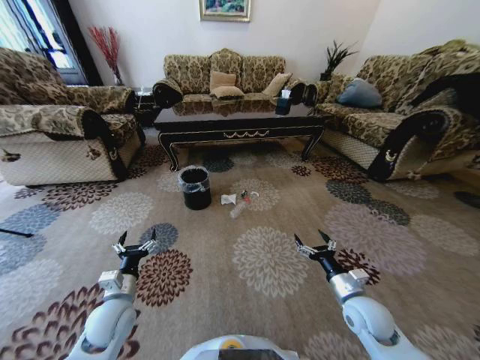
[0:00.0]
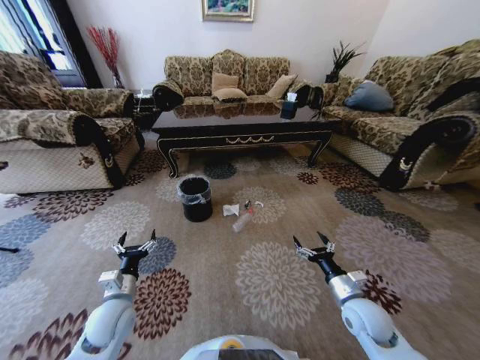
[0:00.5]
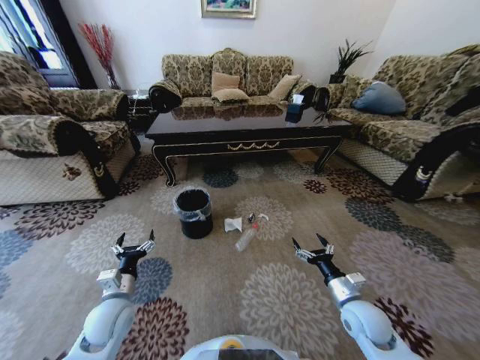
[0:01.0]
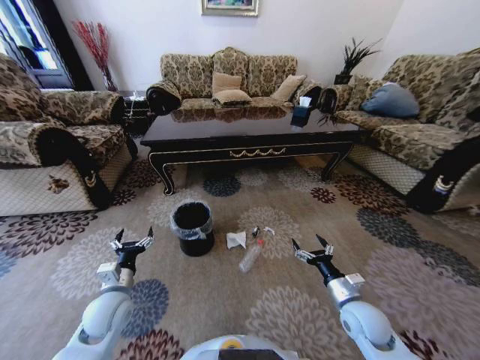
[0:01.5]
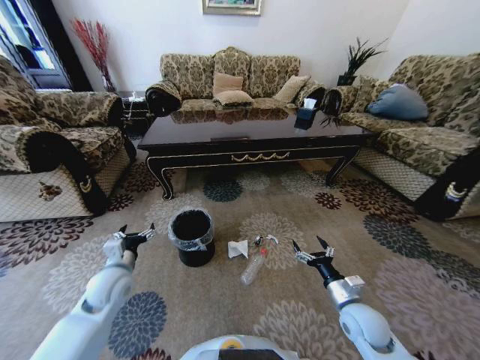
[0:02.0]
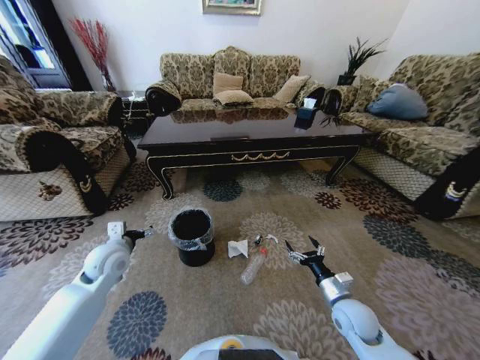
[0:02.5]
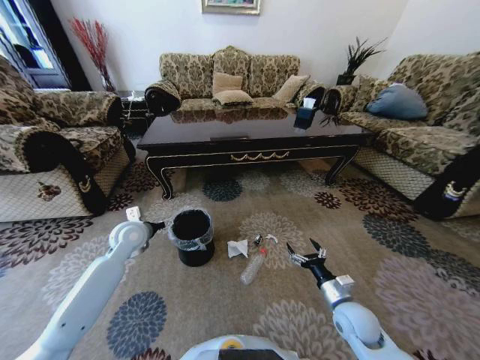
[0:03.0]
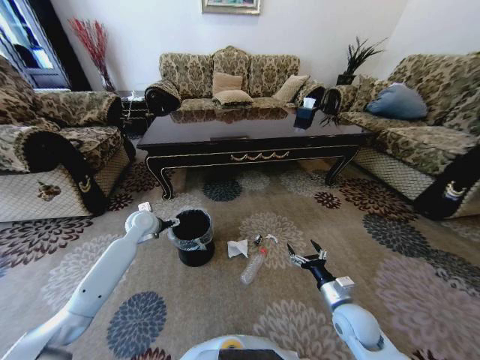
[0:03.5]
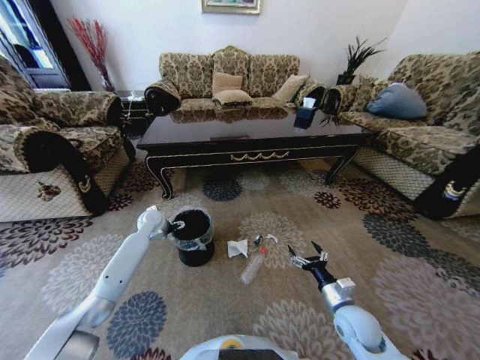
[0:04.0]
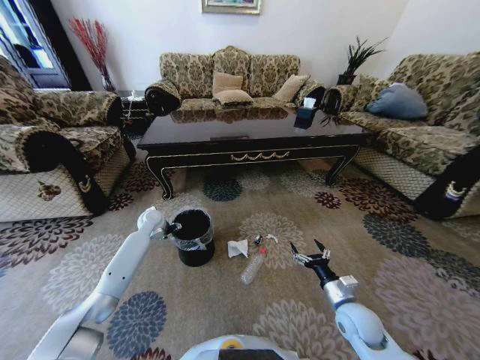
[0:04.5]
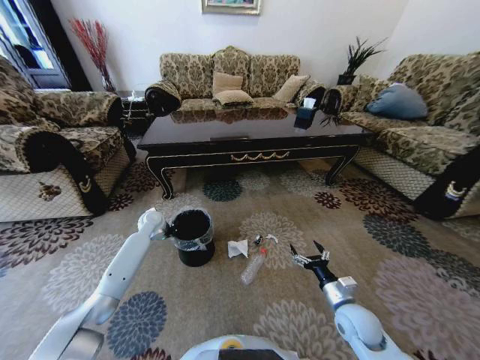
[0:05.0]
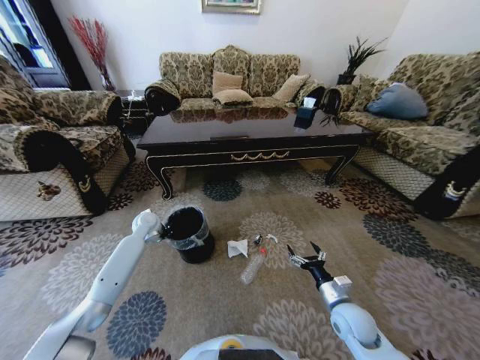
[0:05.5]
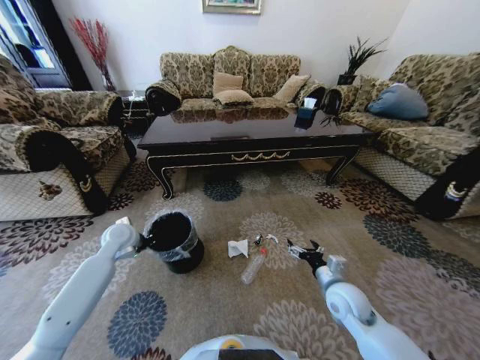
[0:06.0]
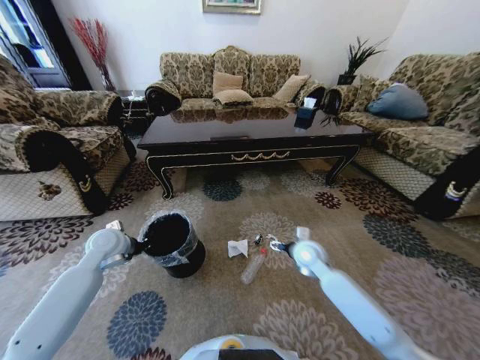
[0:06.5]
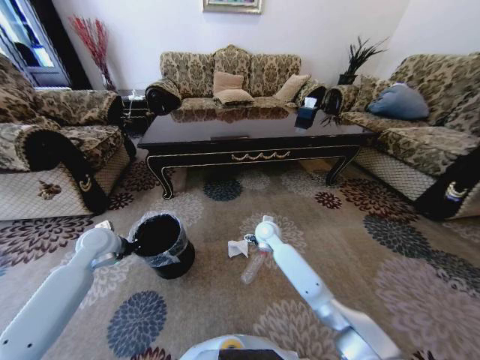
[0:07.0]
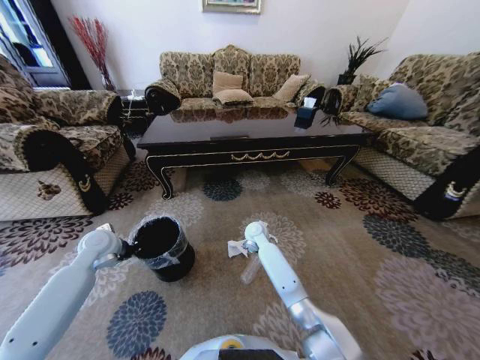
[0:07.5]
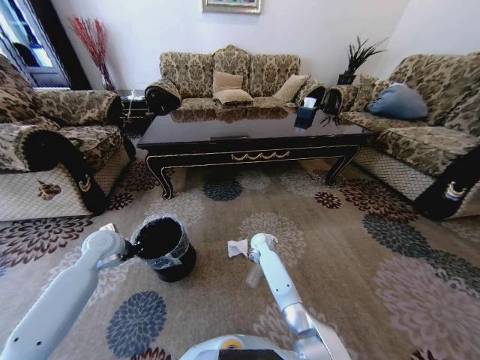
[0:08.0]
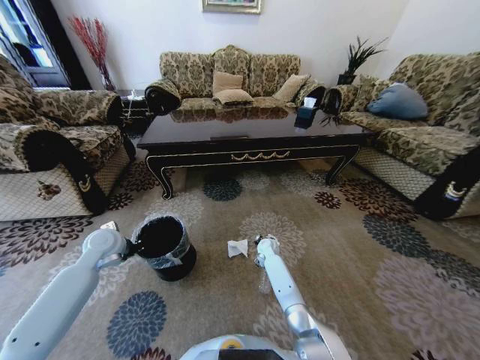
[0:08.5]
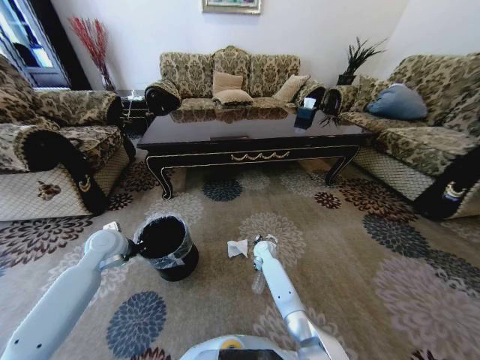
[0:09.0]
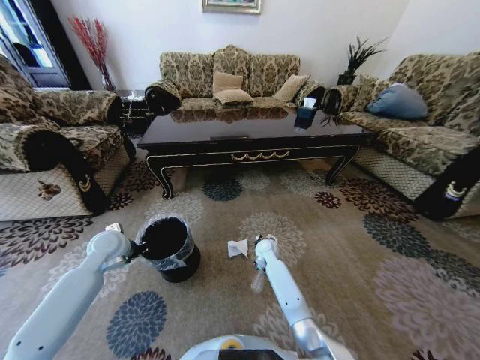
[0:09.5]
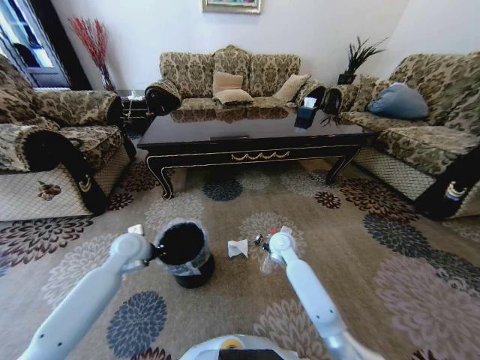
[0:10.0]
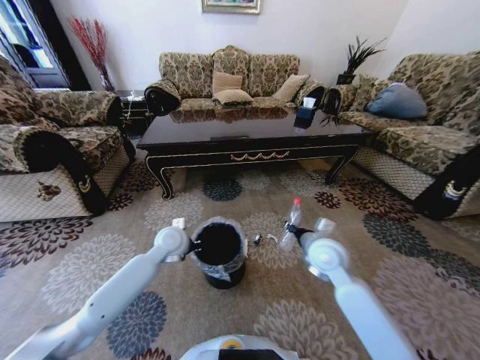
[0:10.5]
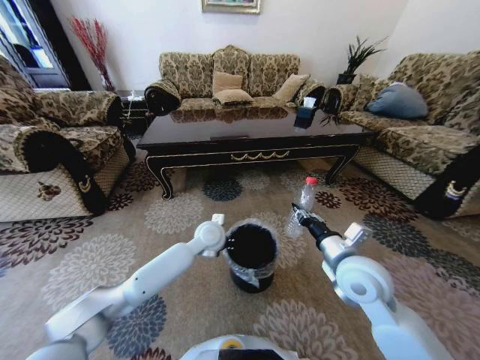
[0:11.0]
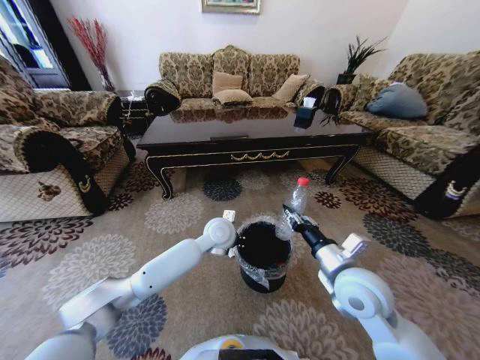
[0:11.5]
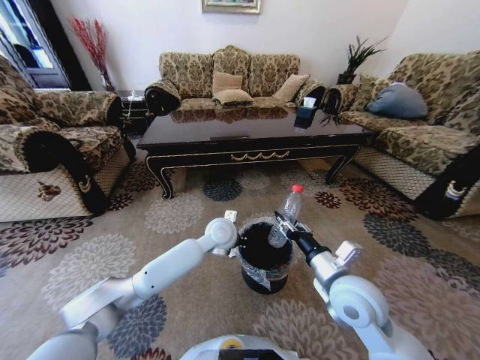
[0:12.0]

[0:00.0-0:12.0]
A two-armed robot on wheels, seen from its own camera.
Task of the whole recording: Move to the front of the table and pick up the trash from the floor, then place it into the trash bin.
0:00.0 to 0:02.0: The left gripper is displaced forward by roughly 5 cm.
0:02.0 to 0:04.0: The left gripper shifts some 20 cm forward.
0:04.0 to 0:06.0: The left gripper moves backward and to the left, some 10 cm, and closes its fingers; the right gripper moves some 5 cm.
0:06.0 to 0:08.0: The right gripper goes some 30 cm forward and to the left.
0:08.0 to 0:10.0: The left gripper goes roughly 10 cm to the right. Meanwhile the right gripper goes approximately 15 cm upward, backward and to the right, and closes up.
0:10.0 to 0:12.0: The right gripper is displaced backward and upward by some 25 cm; the left gripper moves to the right, roughly 25 cm.

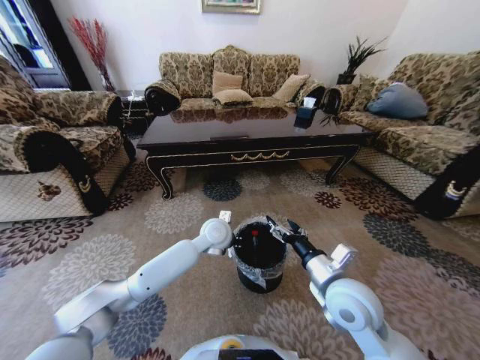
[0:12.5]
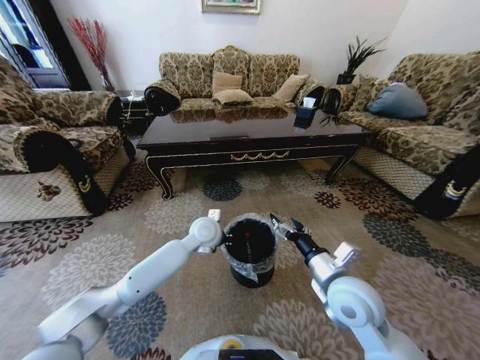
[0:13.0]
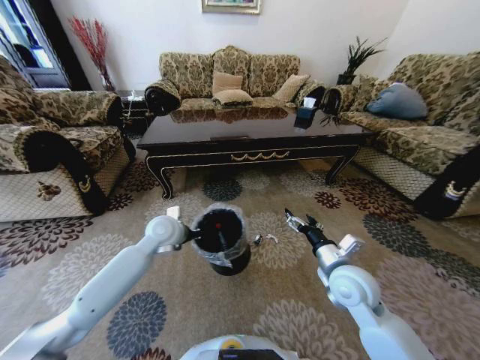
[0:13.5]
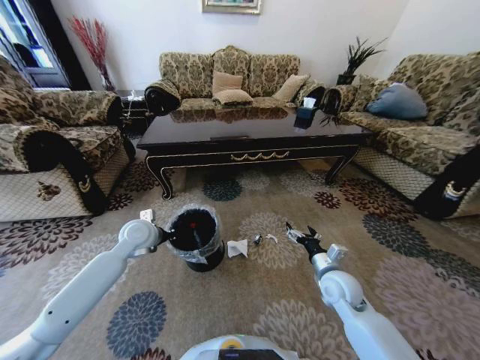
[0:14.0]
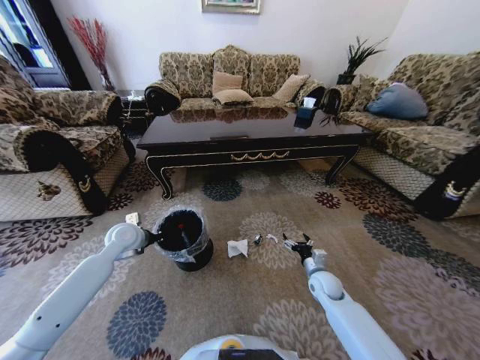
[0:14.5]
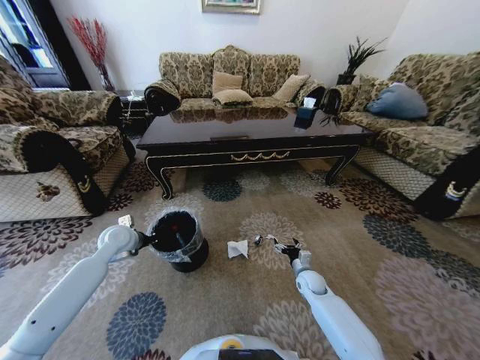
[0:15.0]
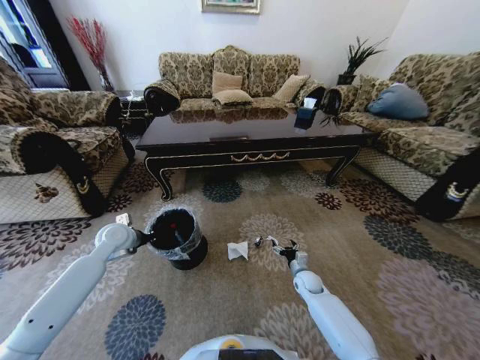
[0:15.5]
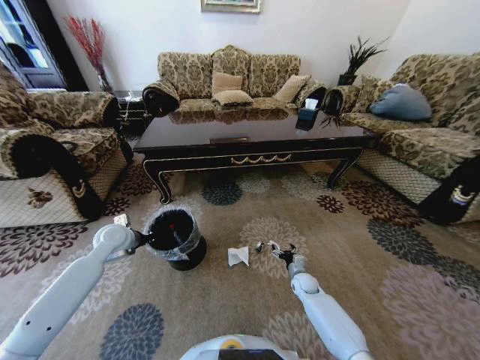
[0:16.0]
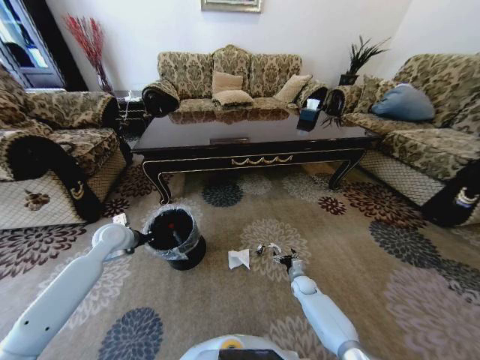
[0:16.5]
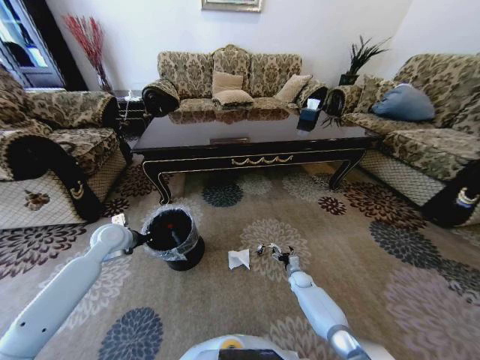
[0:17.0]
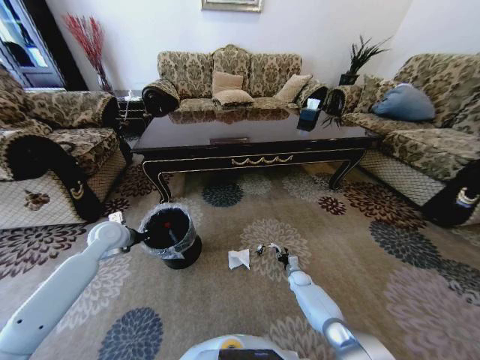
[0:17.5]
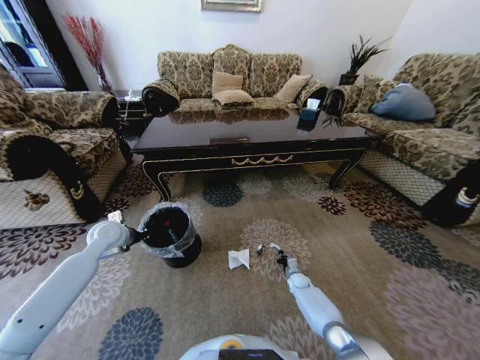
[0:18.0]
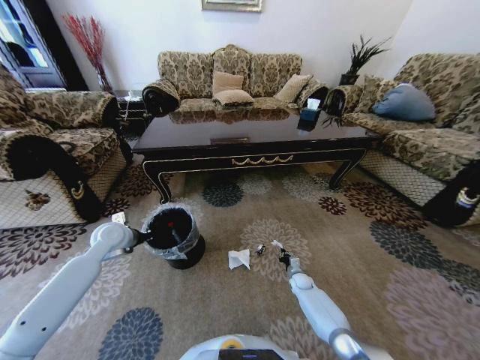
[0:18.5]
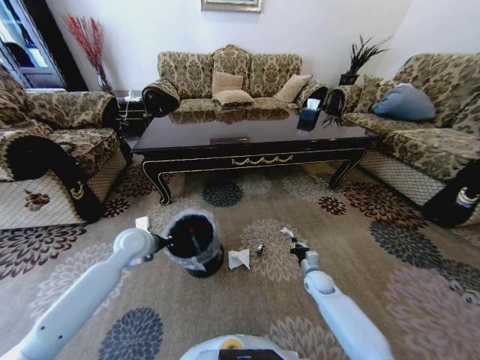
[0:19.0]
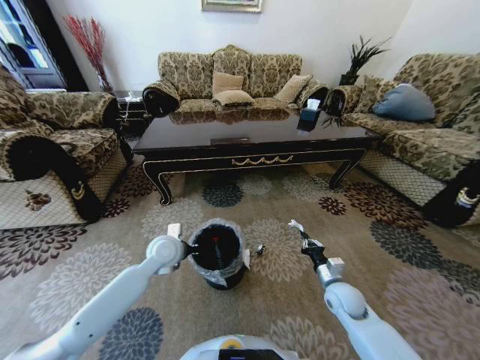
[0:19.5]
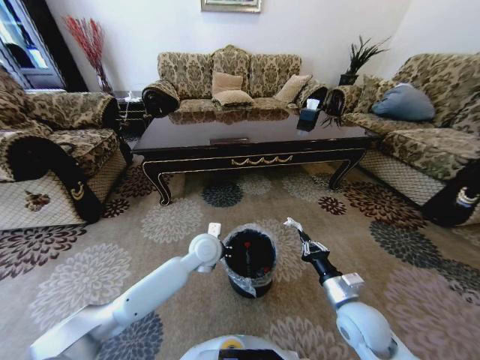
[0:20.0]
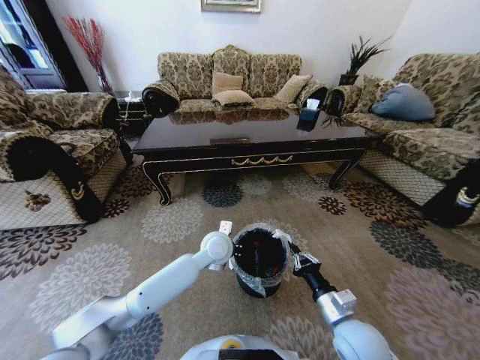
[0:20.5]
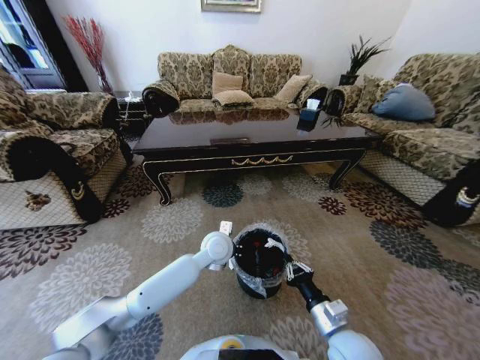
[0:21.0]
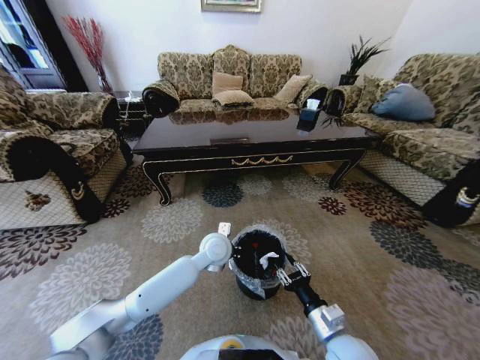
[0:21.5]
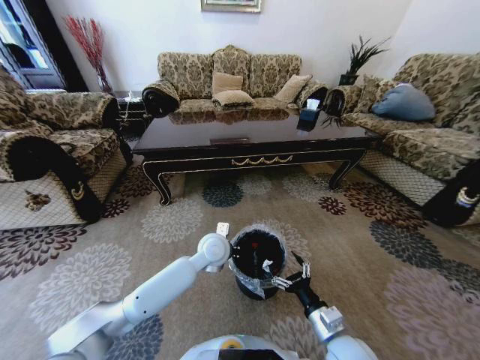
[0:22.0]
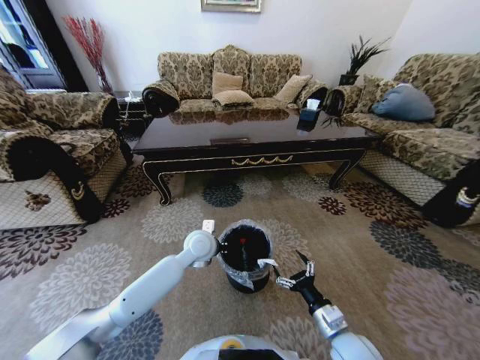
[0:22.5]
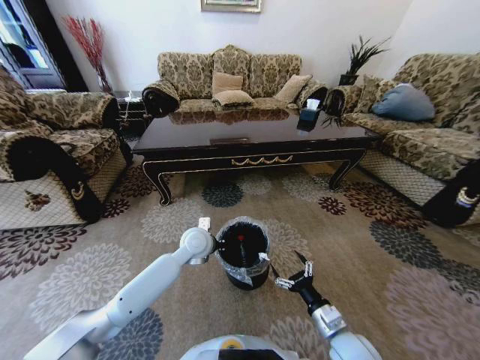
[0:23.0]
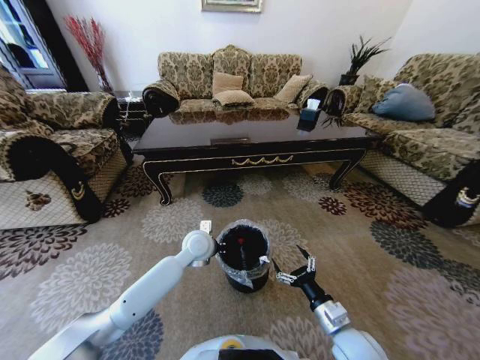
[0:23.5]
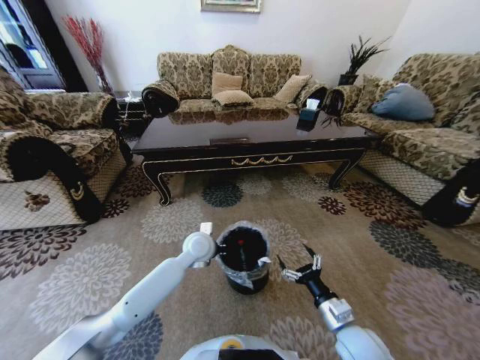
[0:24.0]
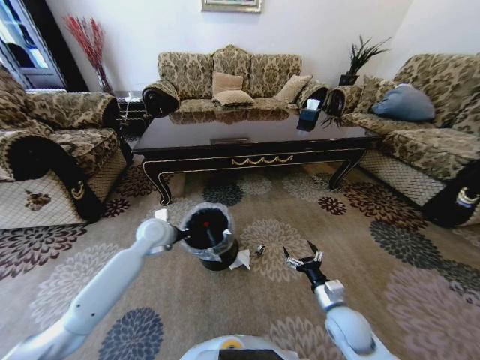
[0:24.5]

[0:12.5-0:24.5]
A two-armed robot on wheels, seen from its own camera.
Task of the whole recording: Move to the front of the table and pick up the trash from the floor, then place it into the trash bin.
0:12.5 to 0:14.5: The right gripper shifts some 25 cm downward and forward; the left gripper heads to the left, covering some 30 cm.
0:14.5 to 0:16.5: The right gripper goes some 15 cm downward.
0:16.5 to 0:18.5: The right gripper closes its fingers.
0:18.5 to 0:20.5: The left gripper shifts about 30 cm to the right; the right gripper travels upward and backward by some 35 cm.
0:20.5 to 0:22.5: The right gripper opens up. The left gripper moves about 5 cm.
0:22.5 to 0:24.5: The left gripper heads to the left, covering approximately 15 cm. The right gripper shifts roughly 5 cm forward.

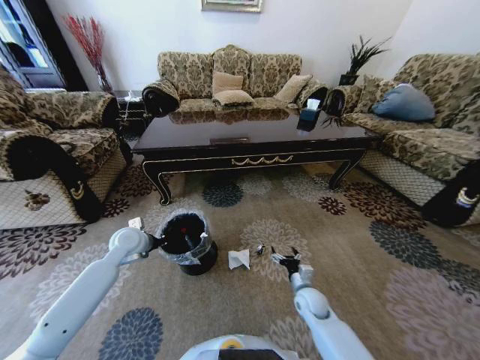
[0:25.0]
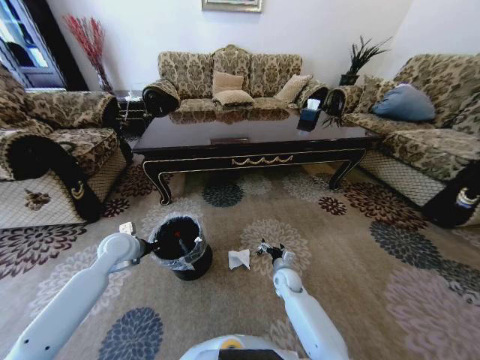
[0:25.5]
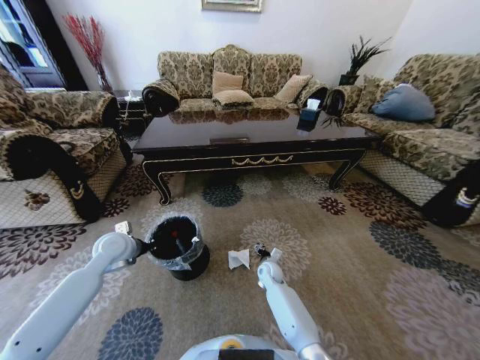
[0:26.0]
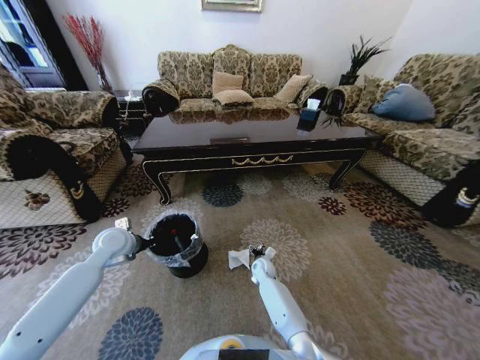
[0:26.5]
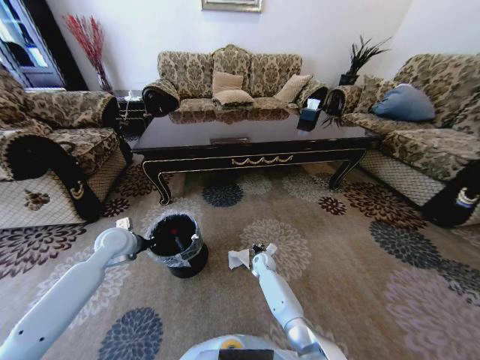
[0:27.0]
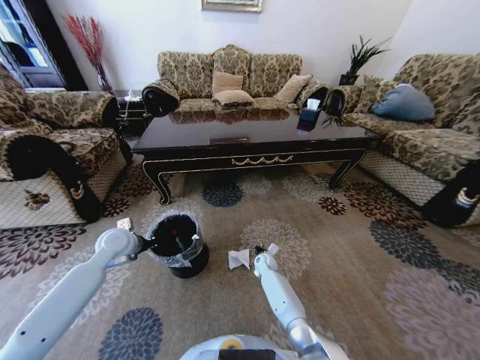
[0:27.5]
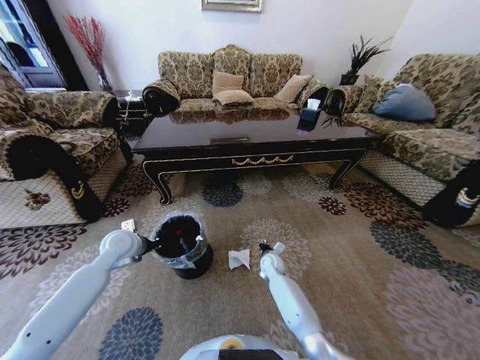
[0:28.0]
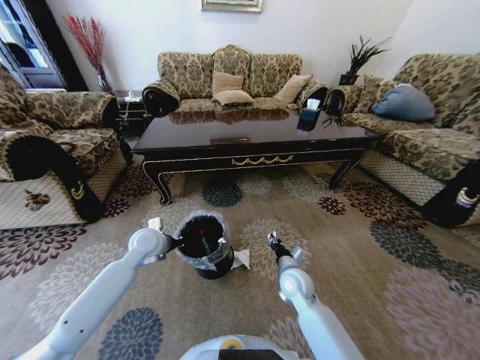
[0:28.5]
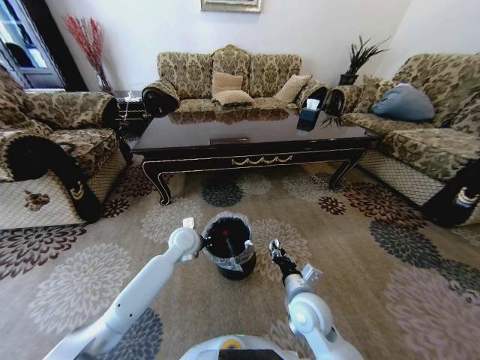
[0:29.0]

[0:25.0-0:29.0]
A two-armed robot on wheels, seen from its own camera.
Task of the whole recording: Move to the front of the table and pick up the trash from the floor, then place it into the trash bin.
0:25.0 to 0:27.0: The right gripper is displaced forward and to the left by approximately 20 cm, and closes.
0:27.0 to 0:29.0: The left gripper is displaced to the right by approximately 20 cm. Meanwhile the right gripper goes approximately 30 cm backward and upward.
